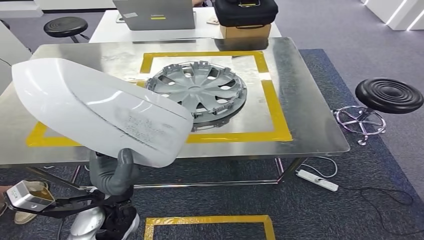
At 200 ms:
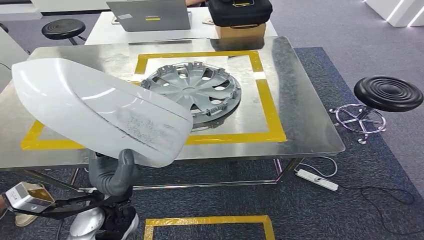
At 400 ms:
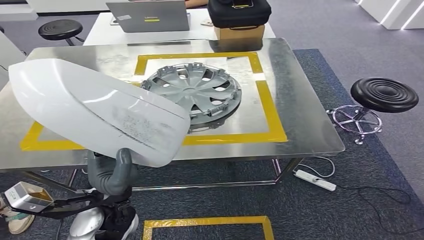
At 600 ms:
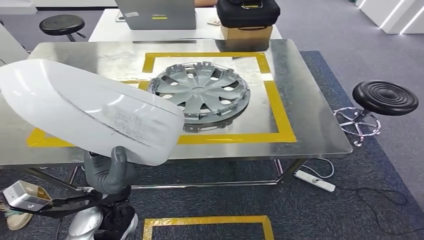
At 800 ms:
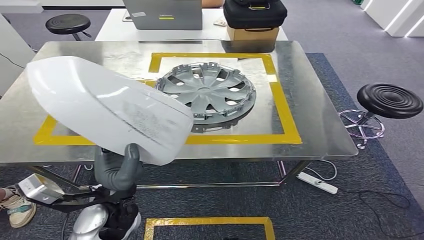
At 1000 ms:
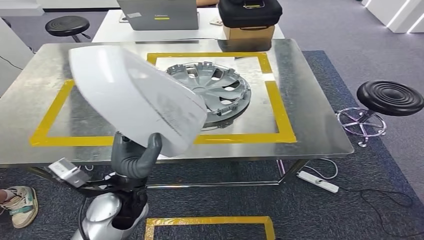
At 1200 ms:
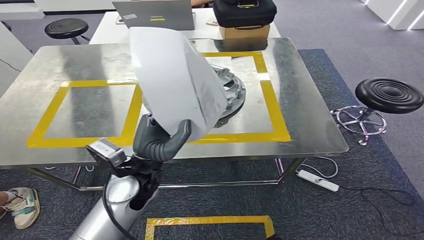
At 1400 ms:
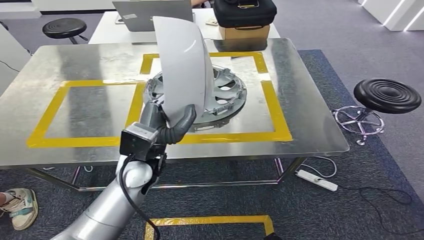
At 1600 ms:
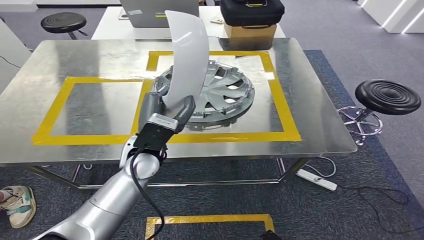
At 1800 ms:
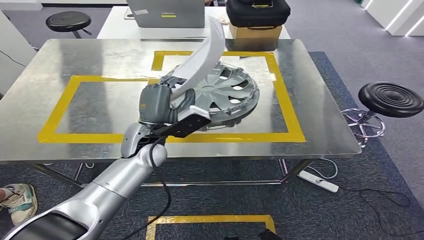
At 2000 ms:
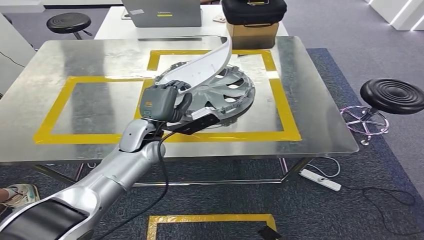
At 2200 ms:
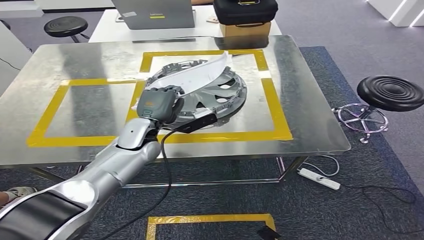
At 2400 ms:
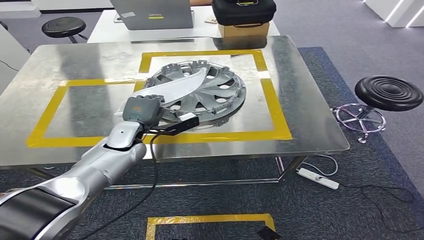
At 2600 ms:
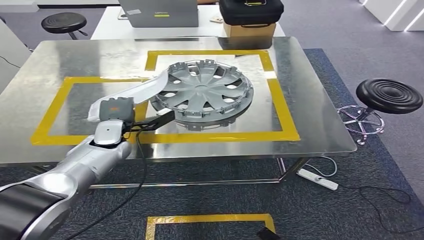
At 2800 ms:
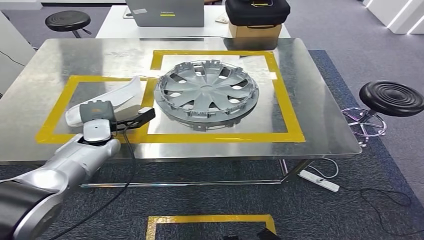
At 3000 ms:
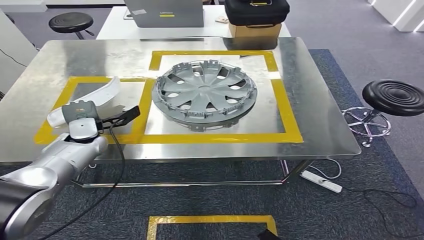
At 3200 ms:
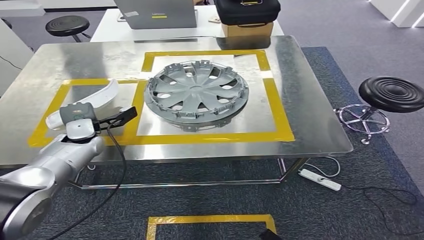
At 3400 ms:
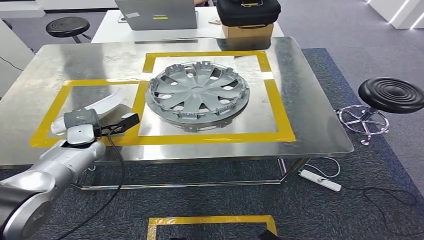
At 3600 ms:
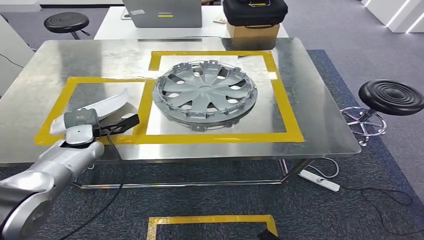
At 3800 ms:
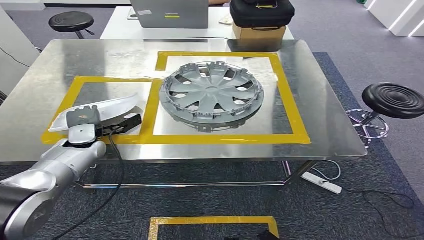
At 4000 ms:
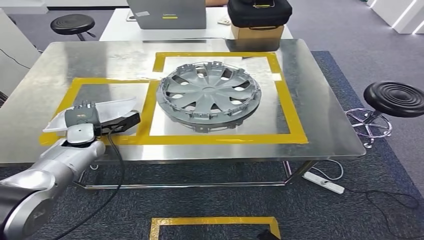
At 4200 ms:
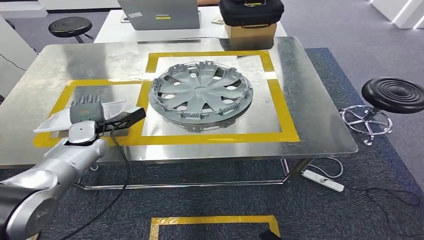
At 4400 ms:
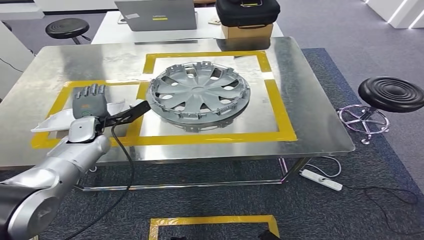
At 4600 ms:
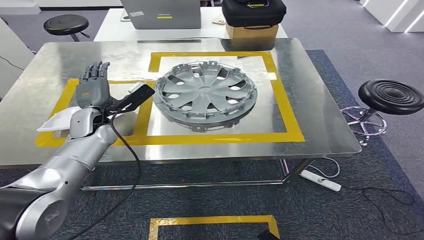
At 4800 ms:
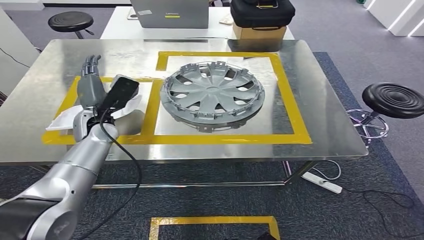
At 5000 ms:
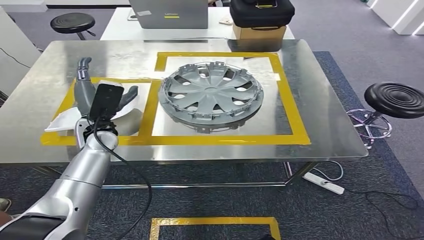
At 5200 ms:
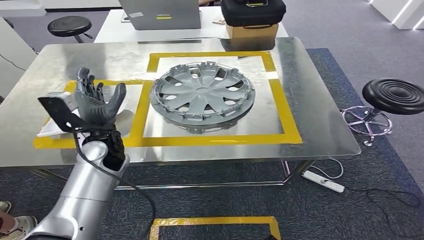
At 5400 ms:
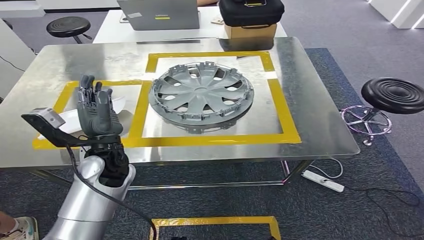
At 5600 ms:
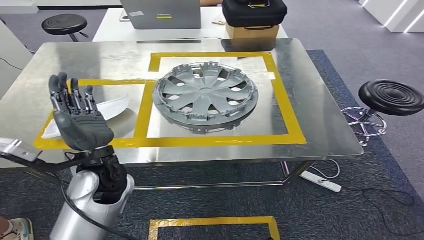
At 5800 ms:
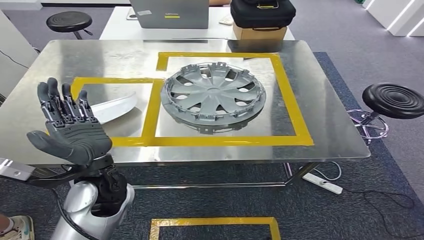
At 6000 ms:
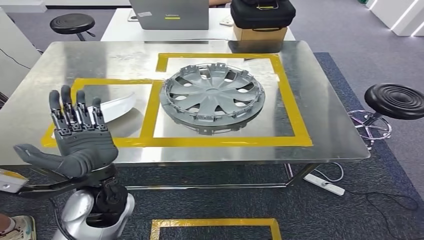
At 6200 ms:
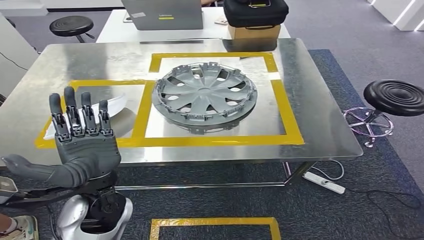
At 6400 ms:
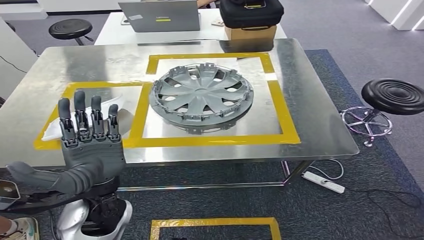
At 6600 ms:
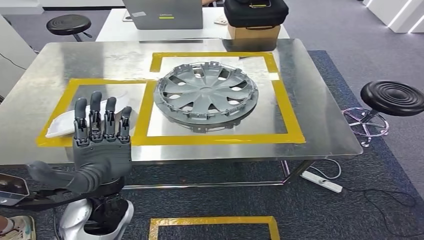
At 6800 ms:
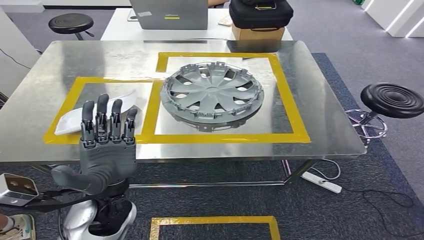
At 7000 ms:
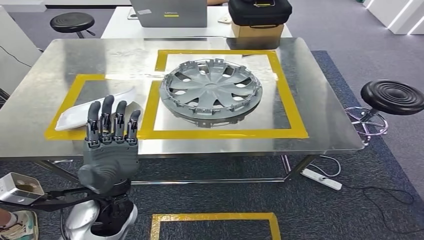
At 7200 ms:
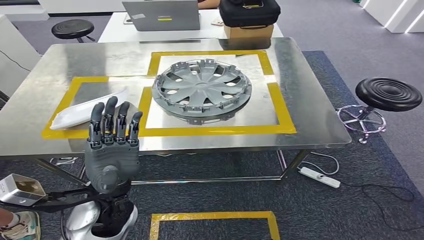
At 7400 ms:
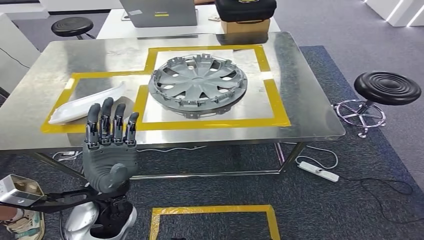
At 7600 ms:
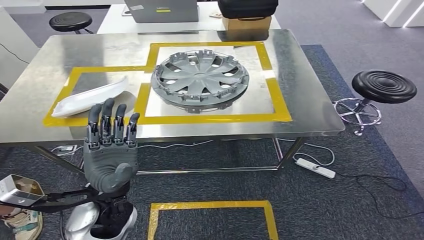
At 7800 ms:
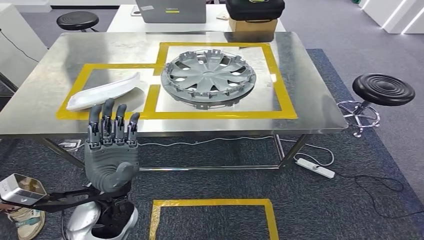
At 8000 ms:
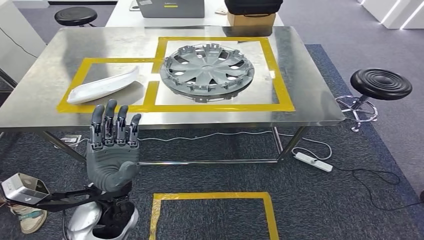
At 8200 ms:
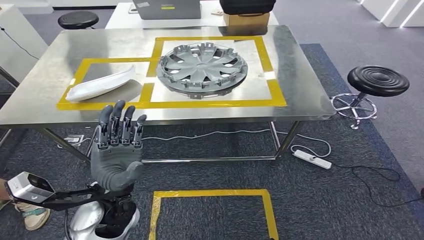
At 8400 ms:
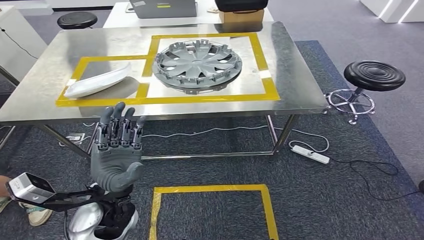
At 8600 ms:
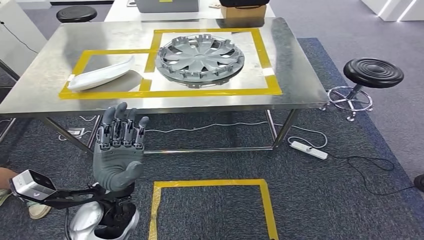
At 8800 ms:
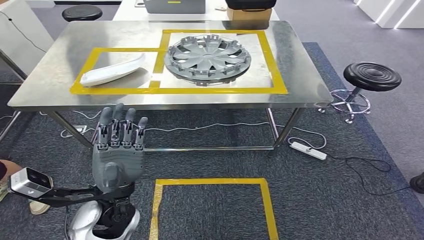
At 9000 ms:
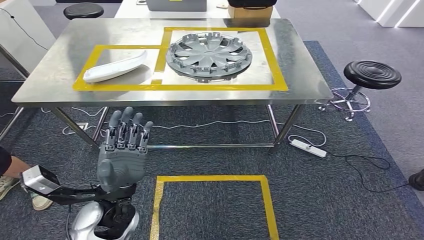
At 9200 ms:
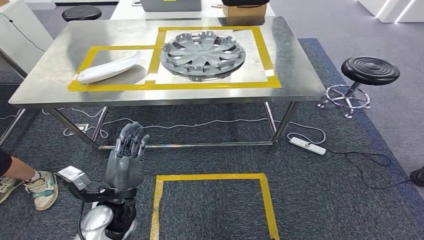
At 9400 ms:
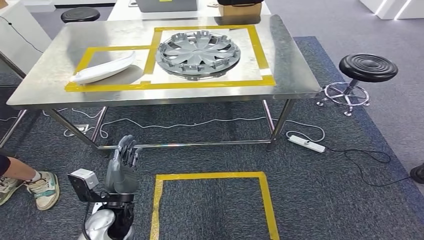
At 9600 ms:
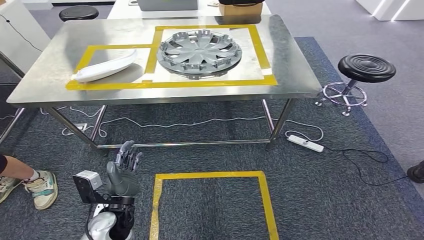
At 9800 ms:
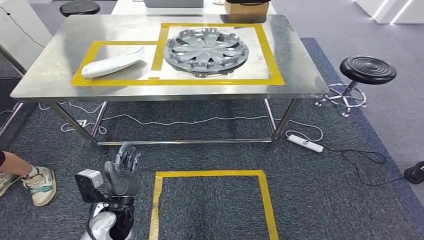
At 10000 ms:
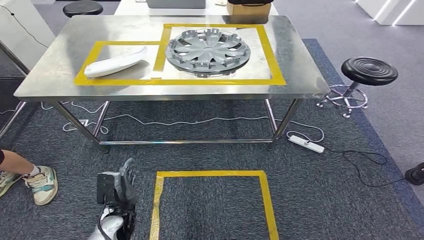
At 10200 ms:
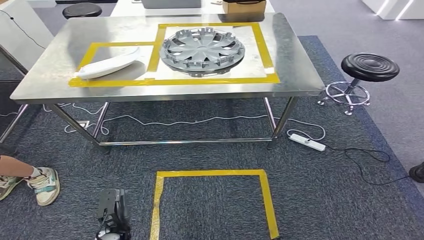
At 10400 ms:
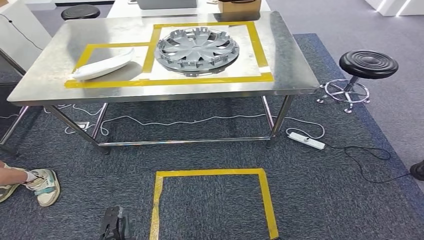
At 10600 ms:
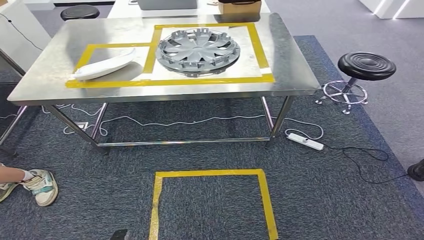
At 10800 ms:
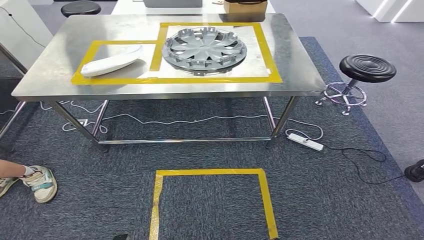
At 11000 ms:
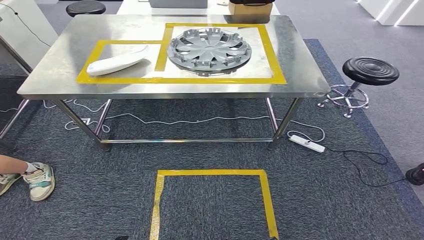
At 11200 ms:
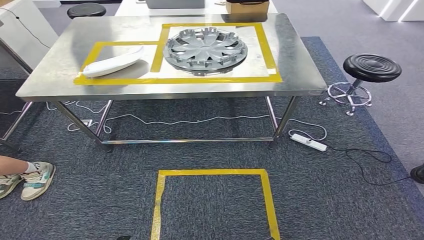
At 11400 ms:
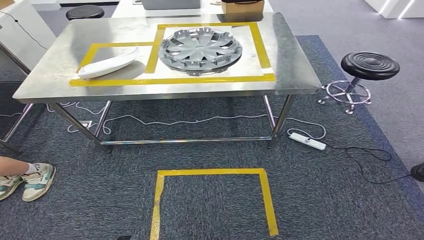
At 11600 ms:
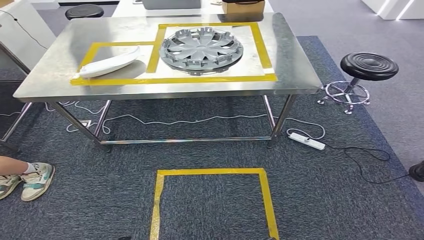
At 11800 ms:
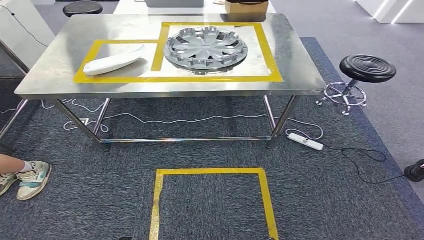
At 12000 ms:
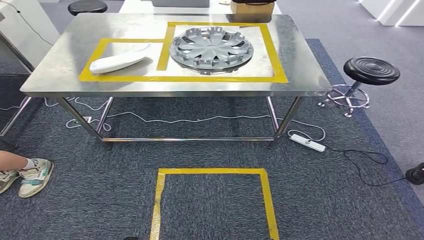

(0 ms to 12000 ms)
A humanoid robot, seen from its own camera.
Step, 0 ms - 10200 ms: Insert the small component into the corresponding slot on the workbench.

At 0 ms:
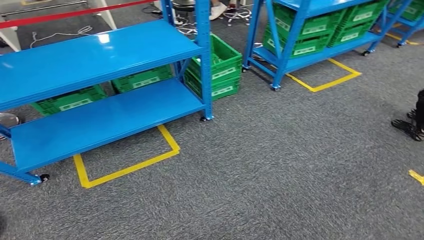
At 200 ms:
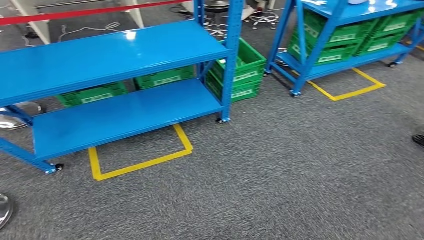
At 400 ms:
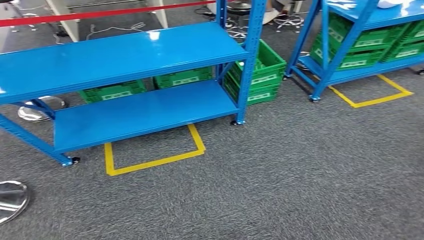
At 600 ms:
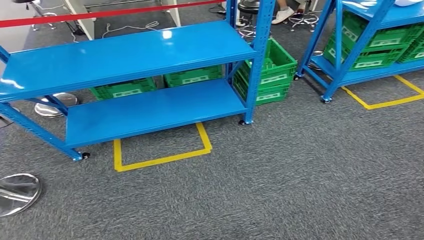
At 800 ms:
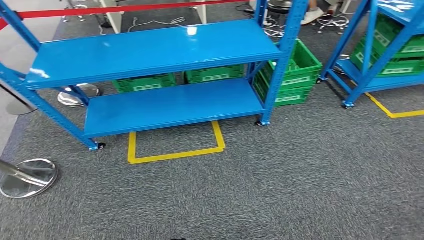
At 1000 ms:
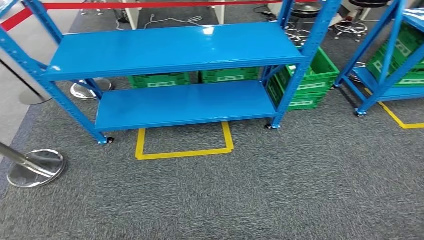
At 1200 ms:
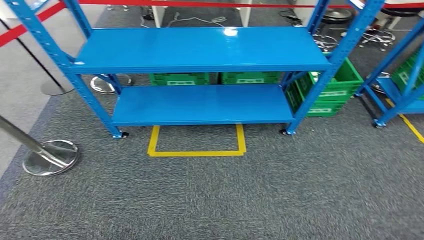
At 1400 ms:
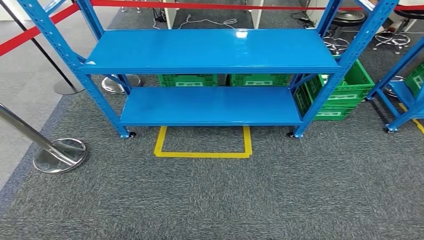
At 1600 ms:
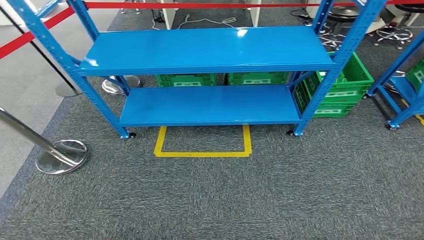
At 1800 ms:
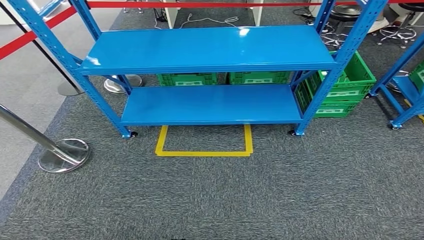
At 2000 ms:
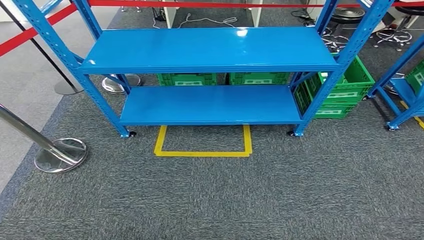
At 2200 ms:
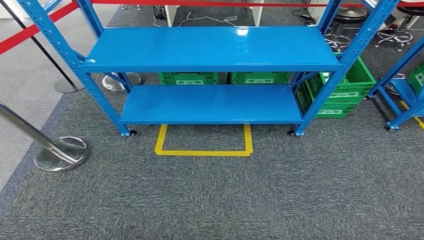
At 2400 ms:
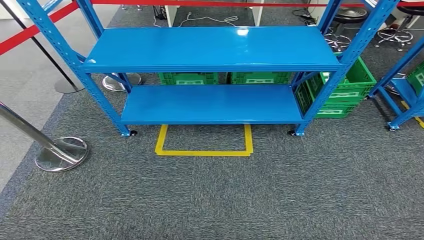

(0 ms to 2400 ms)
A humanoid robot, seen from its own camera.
Step, 0 ms - 2200 ms: Return to the initial position at the workbench.

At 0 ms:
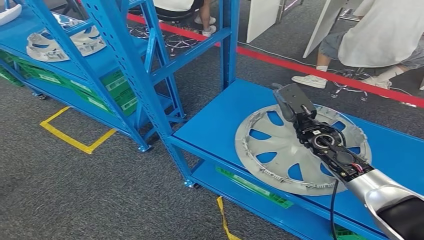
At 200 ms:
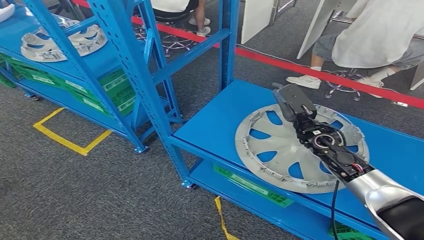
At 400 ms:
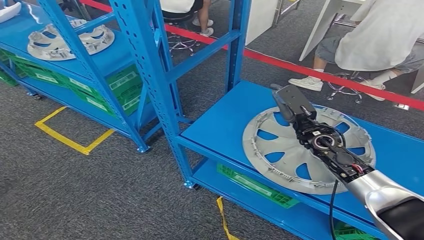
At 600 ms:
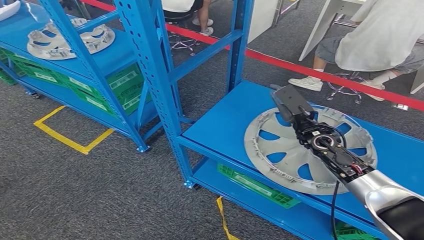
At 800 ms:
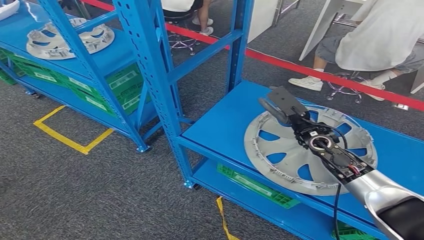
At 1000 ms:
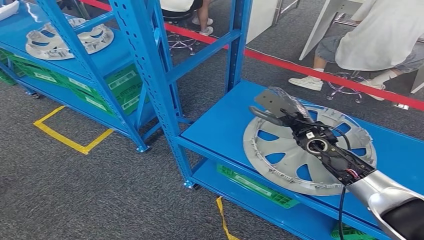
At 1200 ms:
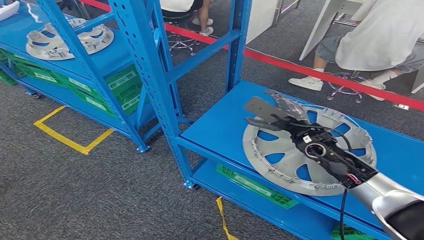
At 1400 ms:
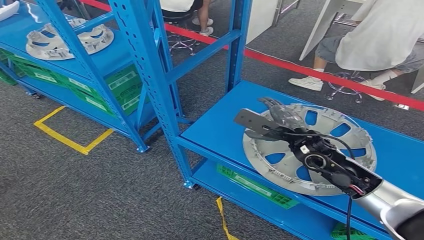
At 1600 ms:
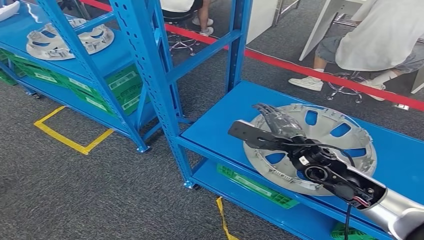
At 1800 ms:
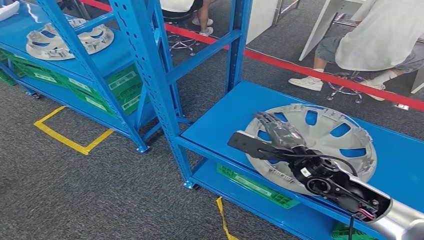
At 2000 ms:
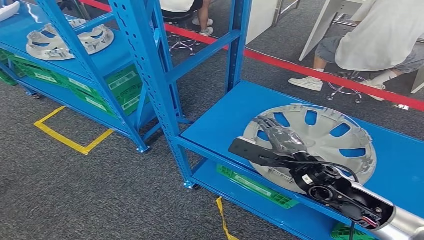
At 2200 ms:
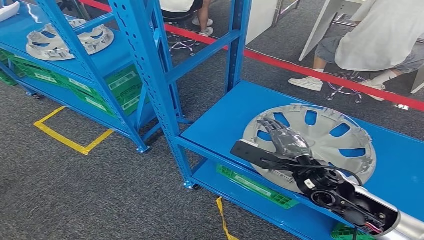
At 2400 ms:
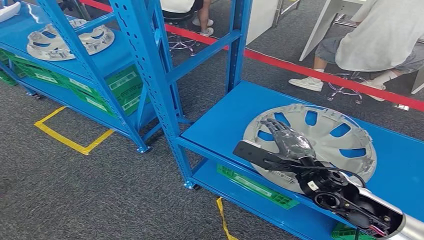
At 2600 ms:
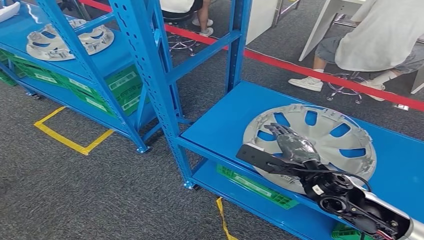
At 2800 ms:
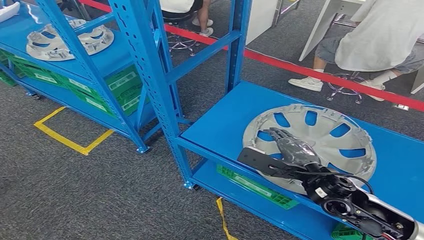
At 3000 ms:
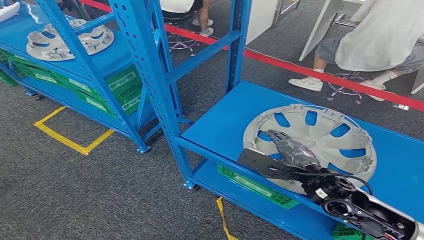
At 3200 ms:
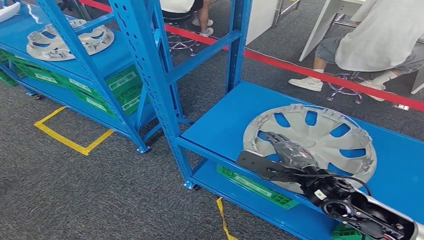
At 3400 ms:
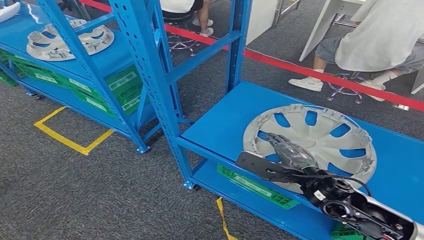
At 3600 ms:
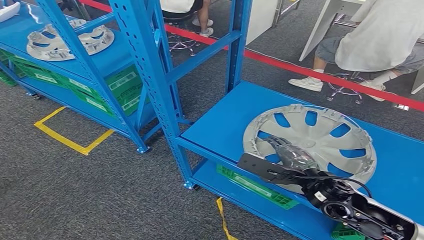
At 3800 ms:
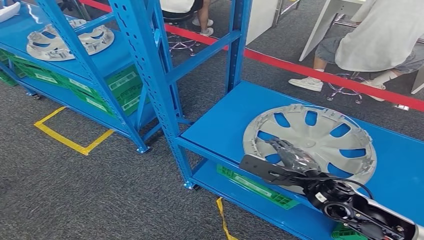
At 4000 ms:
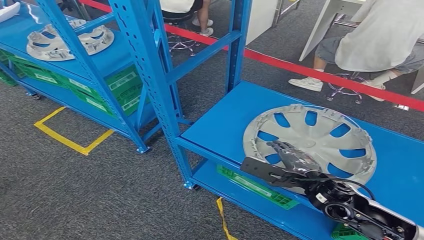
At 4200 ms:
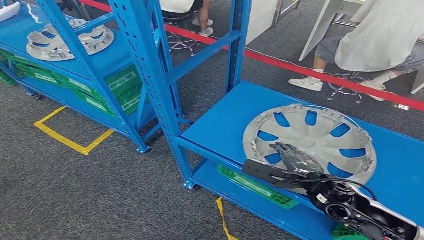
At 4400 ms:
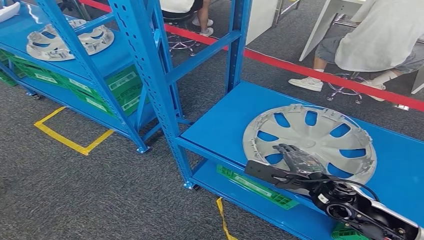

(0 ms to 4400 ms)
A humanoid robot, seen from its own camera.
1400 ms - 3000 ms: The right hand shifts some 10 cm backward.
3000 ms - 4400 ms: The hands stay close to where they were, moving slightly.
